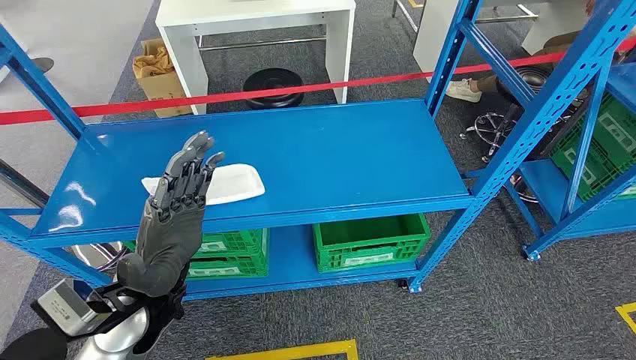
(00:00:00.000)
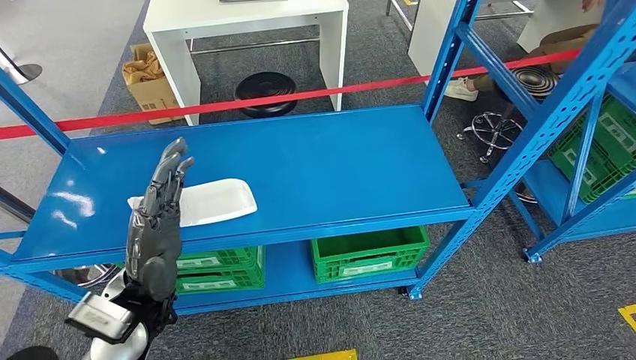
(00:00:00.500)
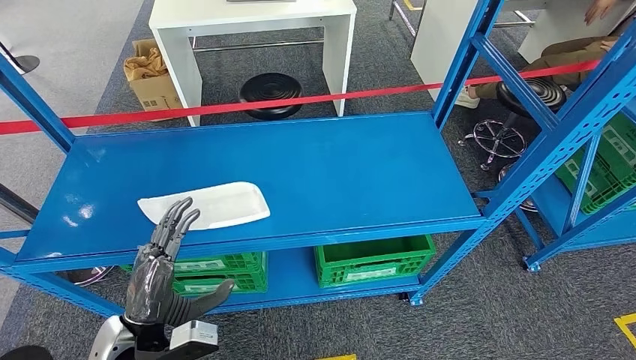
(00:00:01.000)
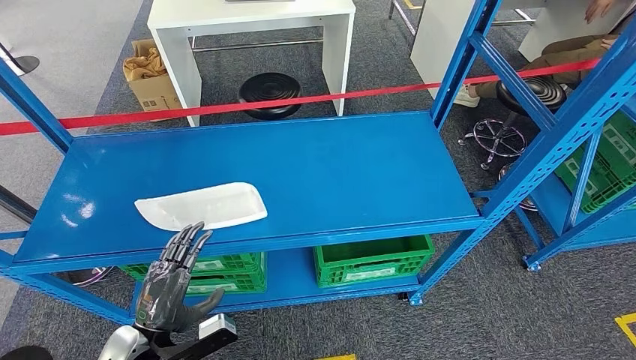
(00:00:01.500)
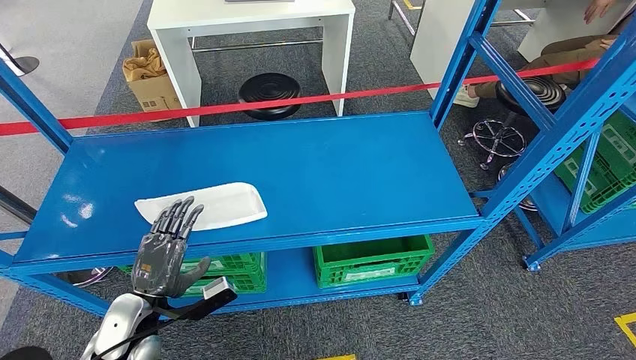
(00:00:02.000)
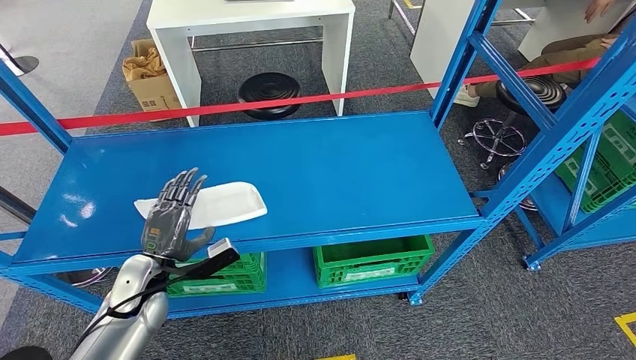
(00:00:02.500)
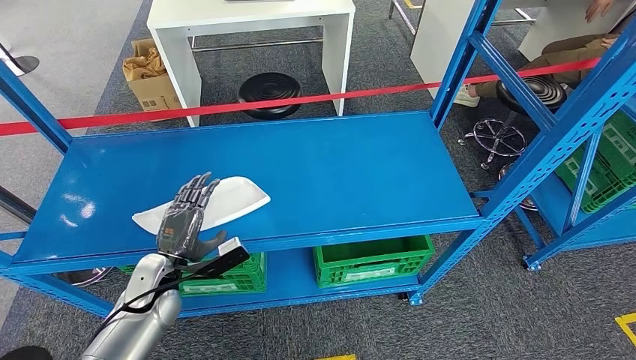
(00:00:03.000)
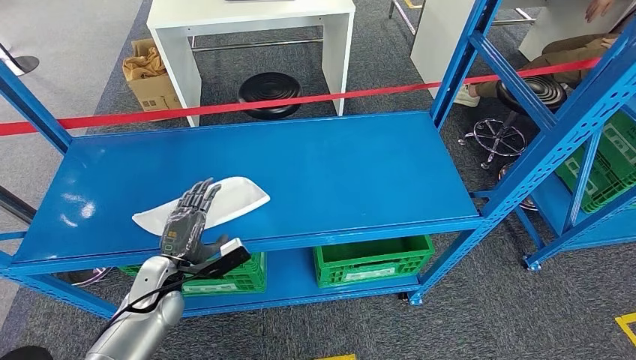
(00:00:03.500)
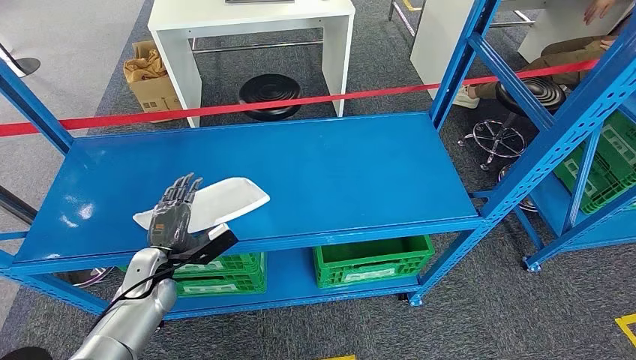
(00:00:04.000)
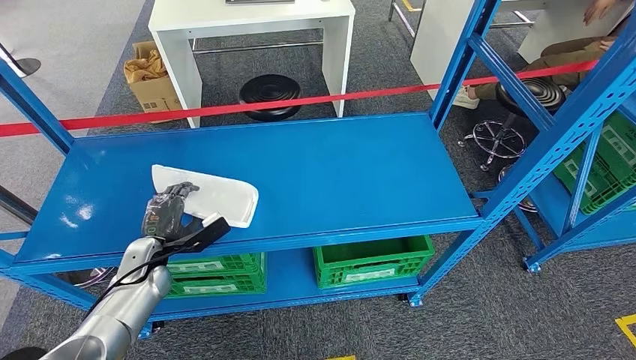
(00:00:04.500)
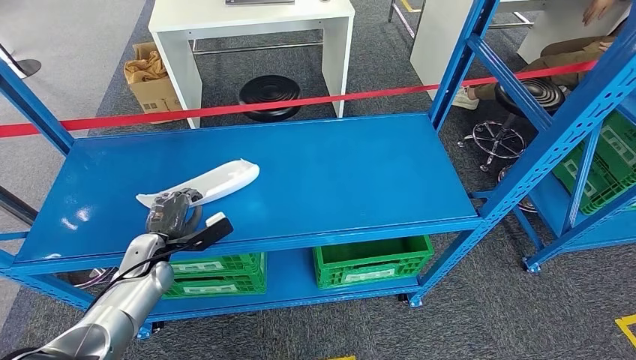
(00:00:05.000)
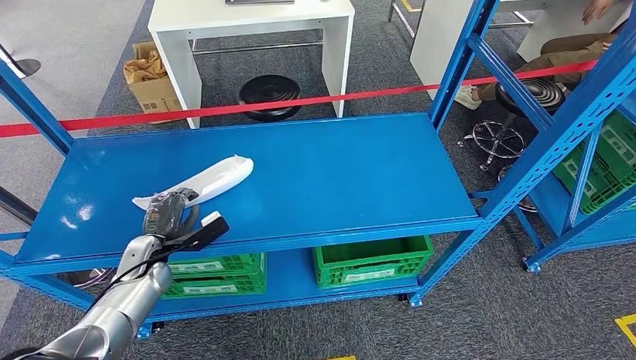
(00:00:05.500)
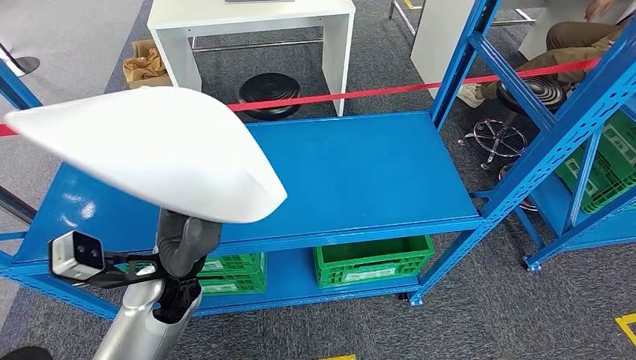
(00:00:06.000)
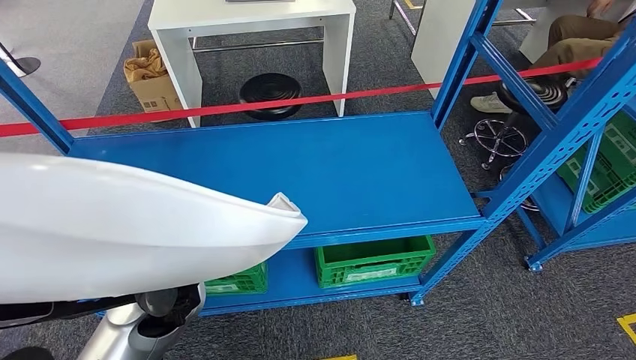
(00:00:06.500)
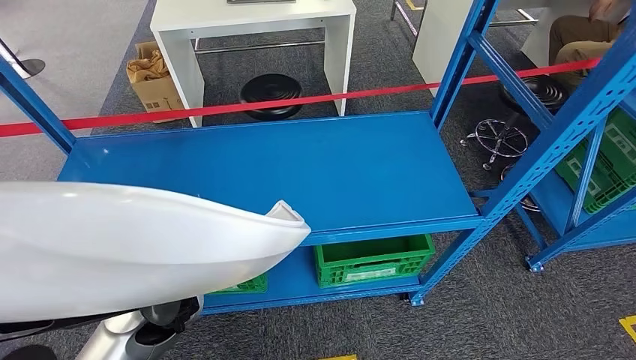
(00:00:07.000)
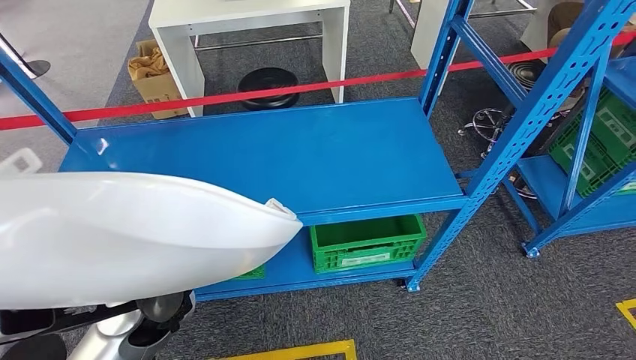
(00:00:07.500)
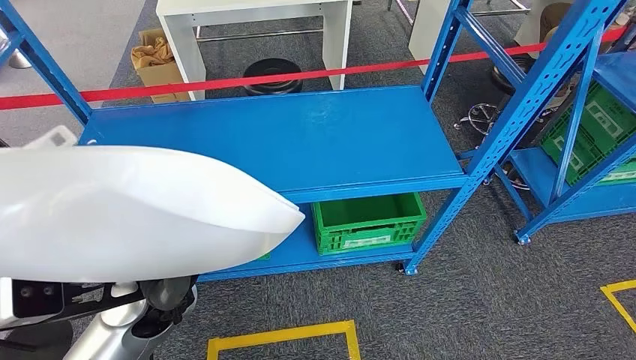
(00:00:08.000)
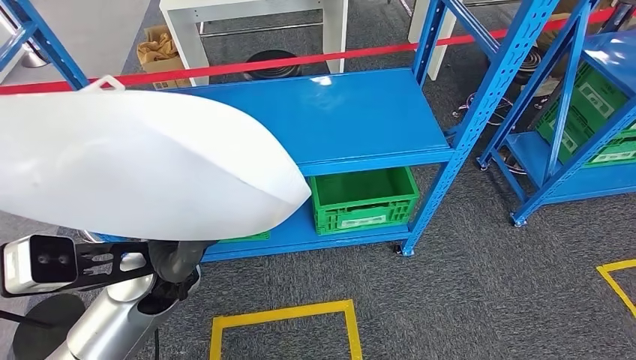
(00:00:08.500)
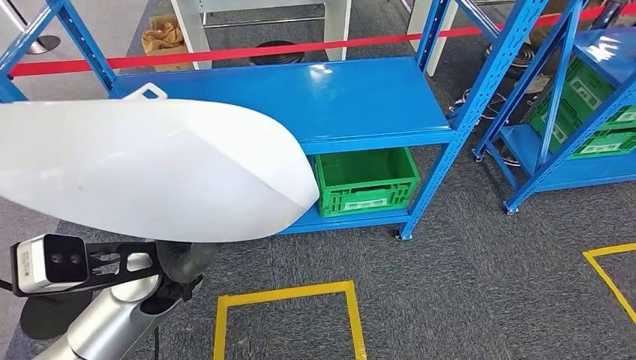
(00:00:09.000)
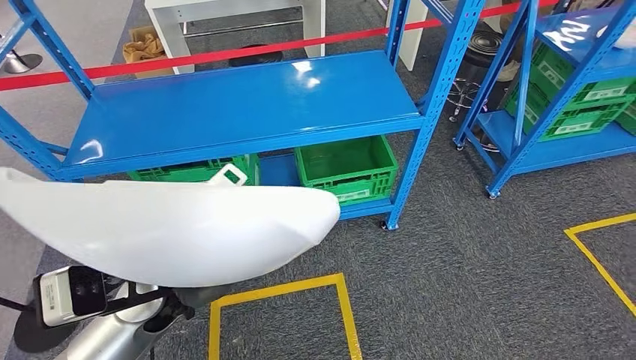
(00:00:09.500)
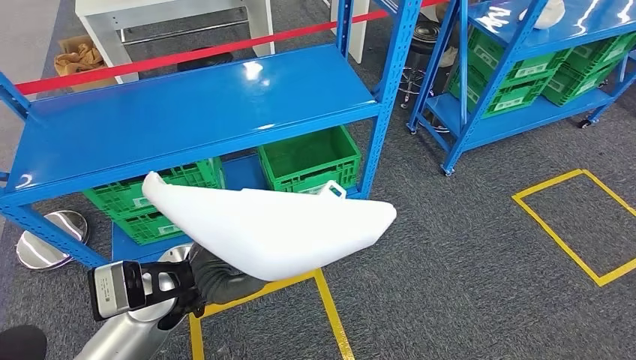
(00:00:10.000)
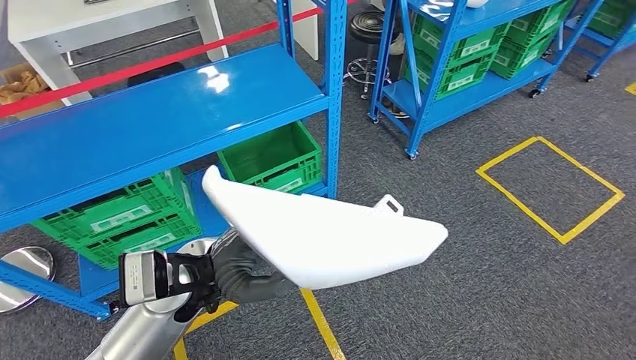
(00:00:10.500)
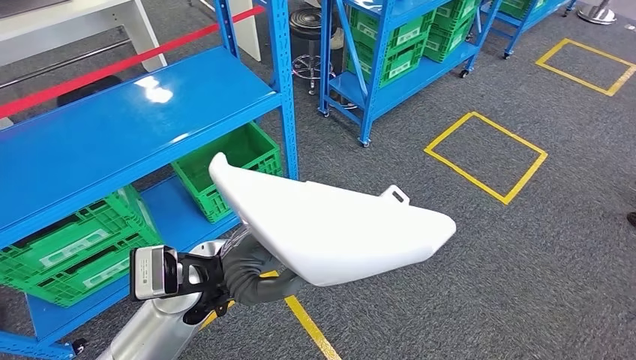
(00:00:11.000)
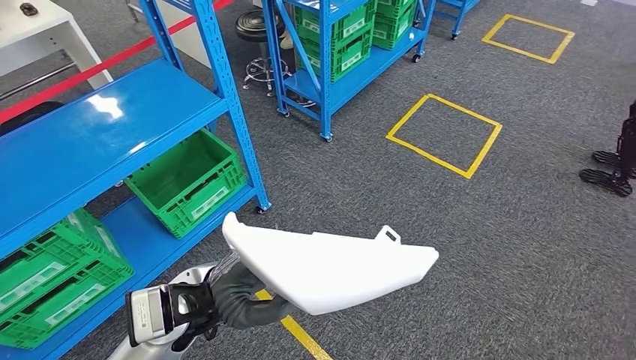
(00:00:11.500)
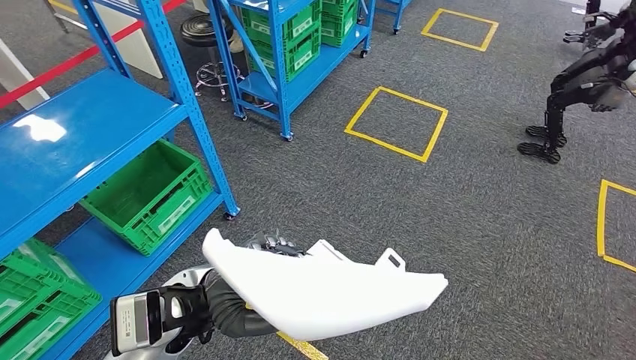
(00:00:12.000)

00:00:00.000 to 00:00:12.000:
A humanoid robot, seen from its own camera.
Step, 00:00:00.000 to 00:00:06.000: Pick up the small component from the shelf.
00:00:02.000 to 00:00:04.000: The left hand travels forward by about 10 cm.
00:00:04.000 to 00:00:06.000: The left hand heads upward and to the right, covering roughly 15 cm.

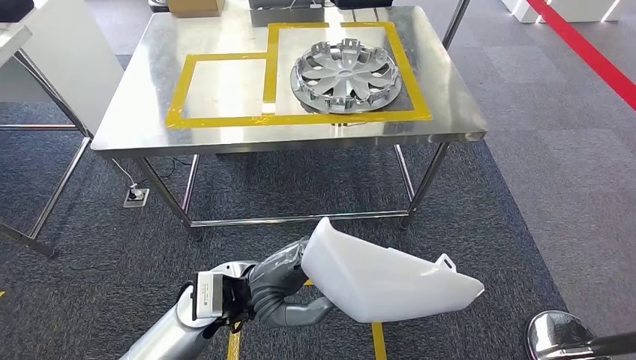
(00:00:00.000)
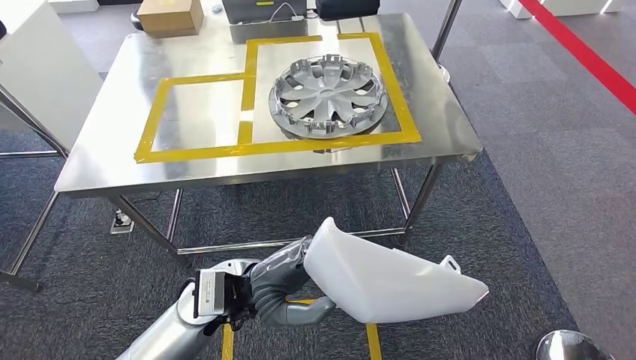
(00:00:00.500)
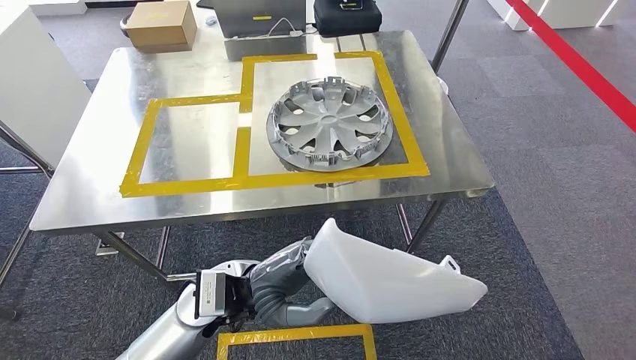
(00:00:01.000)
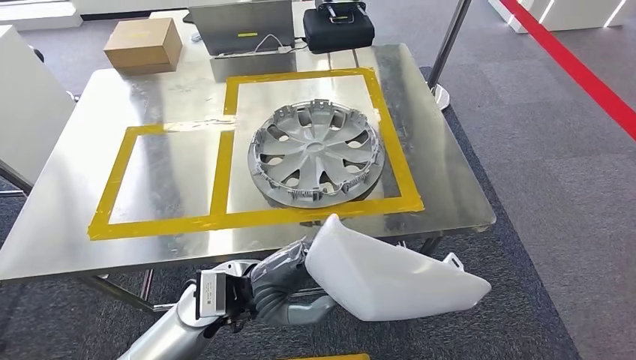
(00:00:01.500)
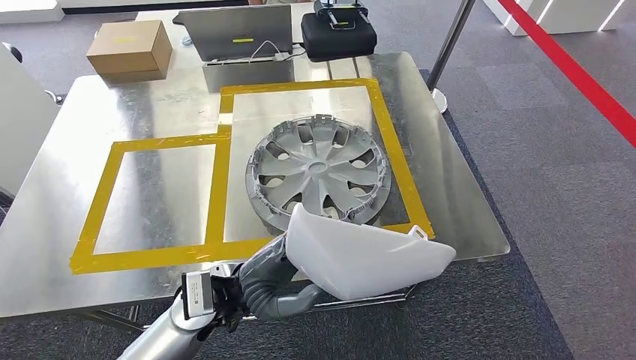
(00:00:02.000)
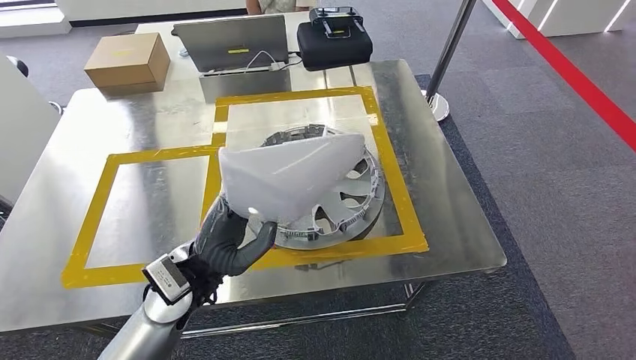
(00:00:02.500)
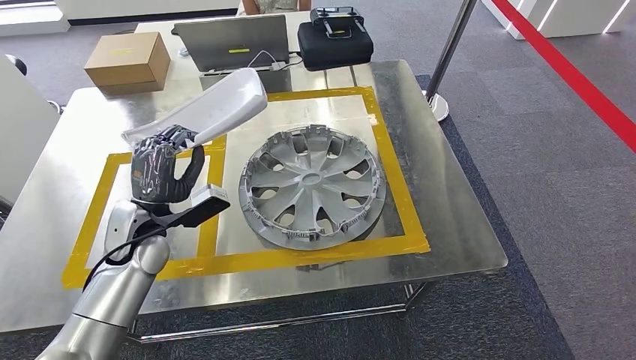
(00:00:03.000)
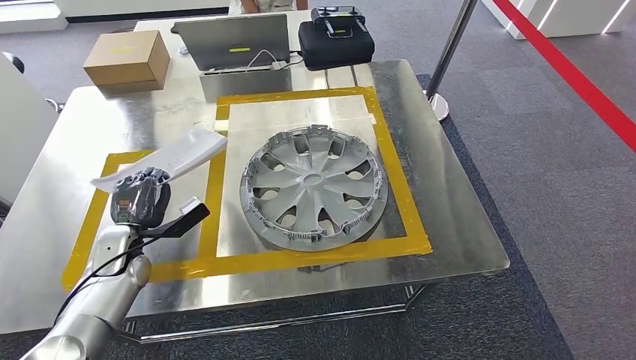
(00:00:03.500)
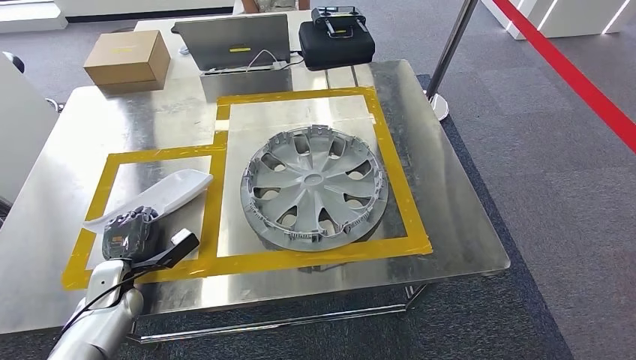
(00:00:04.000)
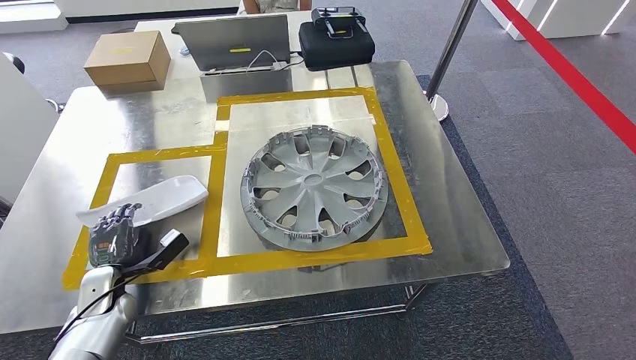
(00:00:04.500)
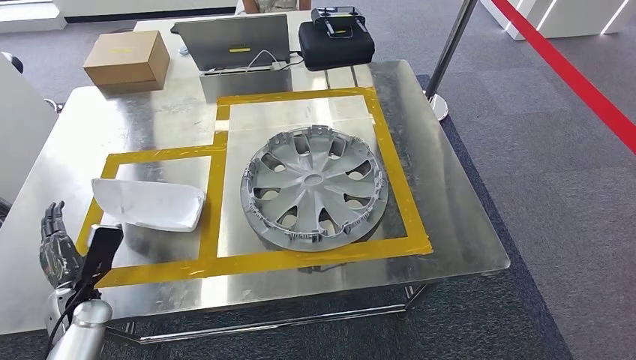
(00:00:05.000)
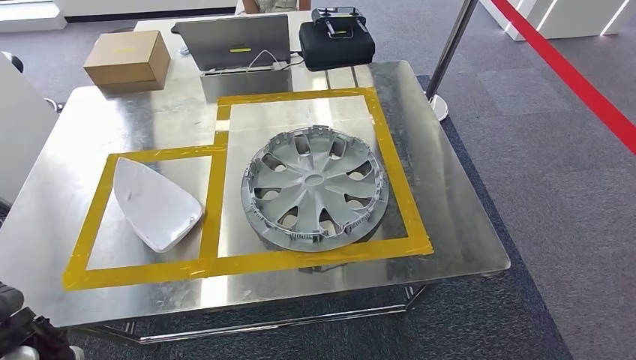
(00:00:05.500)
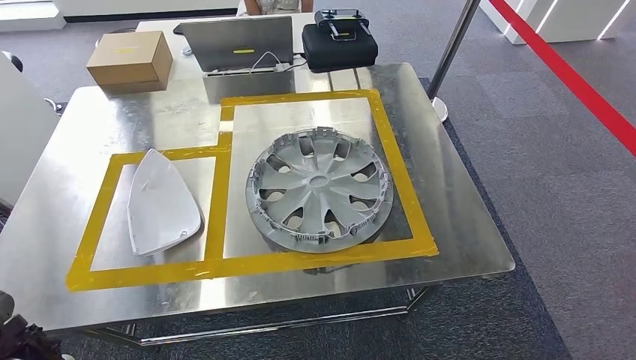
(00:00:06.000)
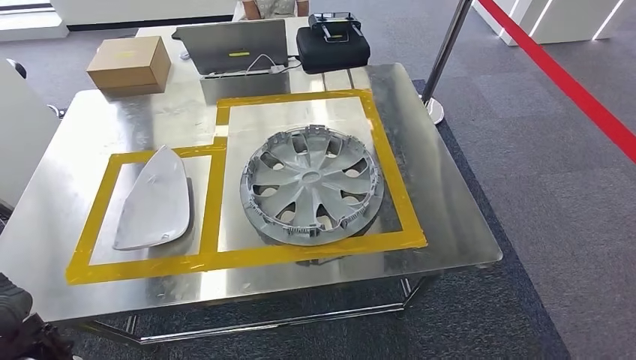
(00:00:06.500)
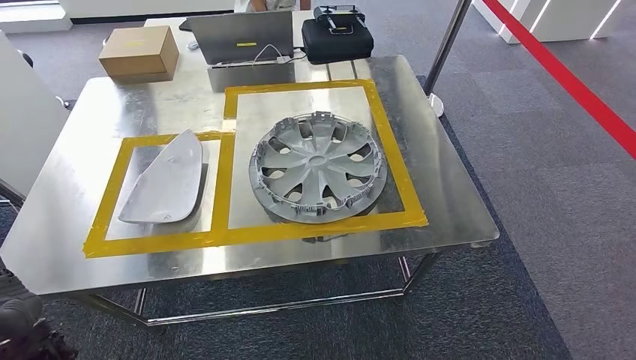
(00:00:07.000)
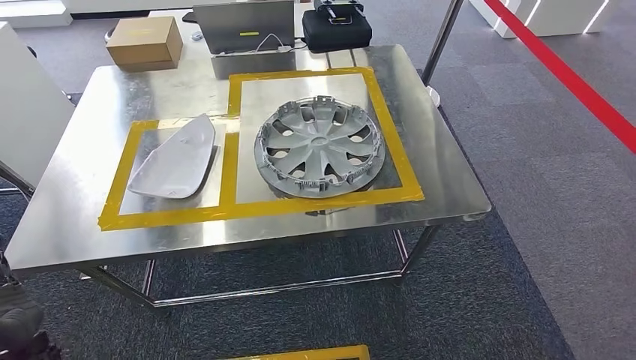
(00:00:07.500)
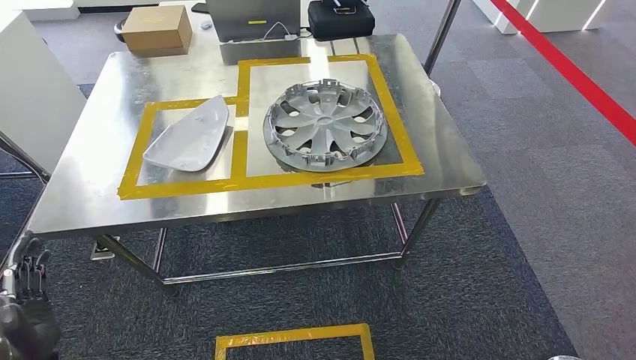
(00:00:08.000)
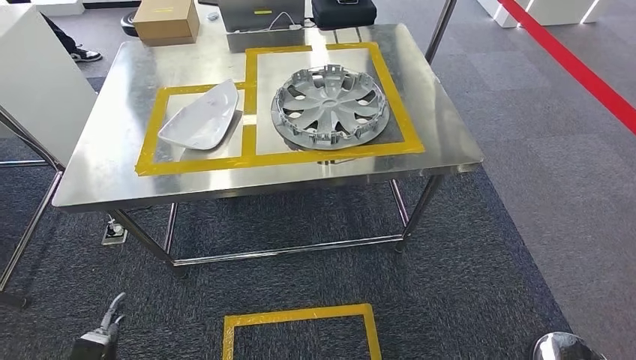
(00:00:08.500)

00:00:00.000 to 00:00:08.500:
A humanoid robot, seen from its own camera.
Step, 00:00:00.000 to 00:00:02.000: Move the small component to the workbench.
Step, 00:00:02.500 to 00:00:06.500: Insert the small component into the corresponding slot on the workbench.
